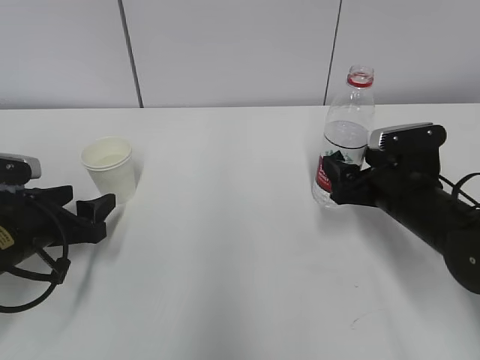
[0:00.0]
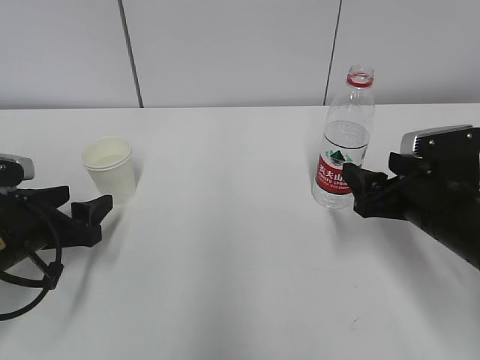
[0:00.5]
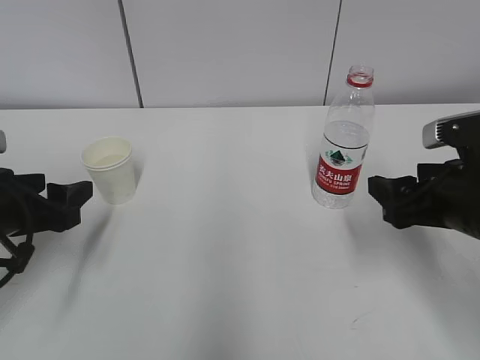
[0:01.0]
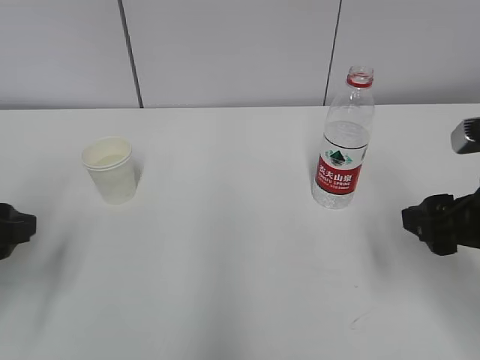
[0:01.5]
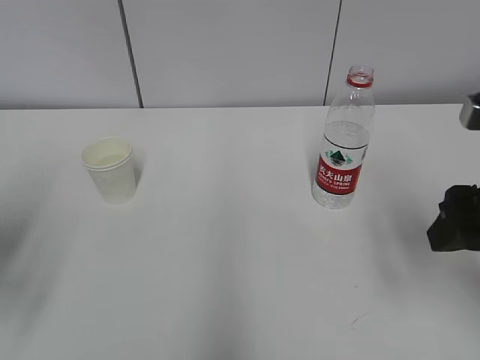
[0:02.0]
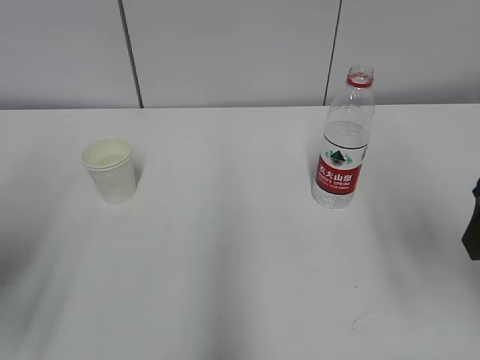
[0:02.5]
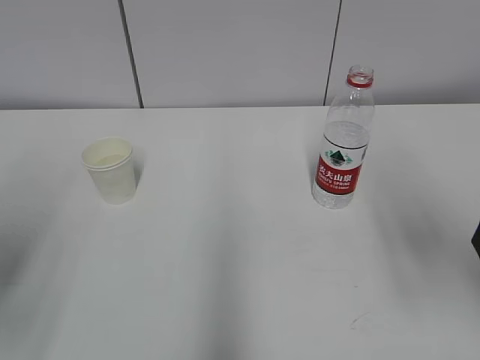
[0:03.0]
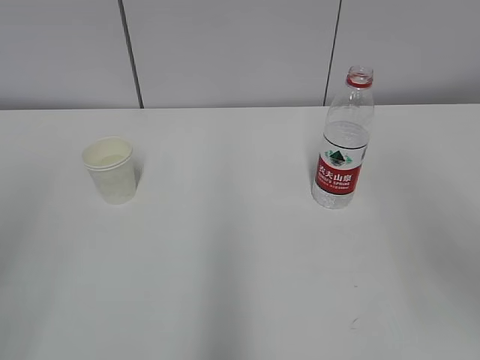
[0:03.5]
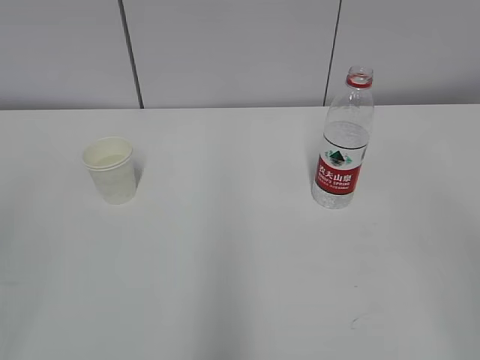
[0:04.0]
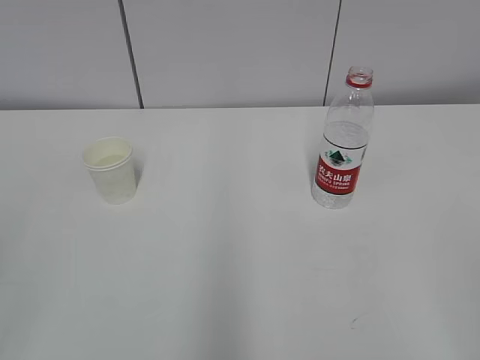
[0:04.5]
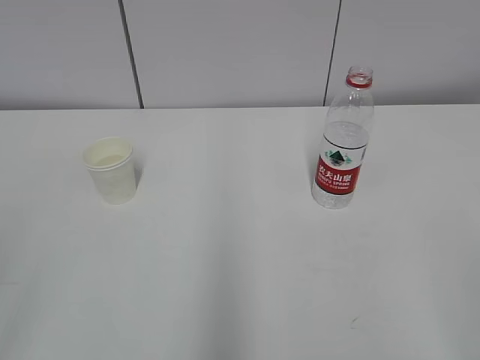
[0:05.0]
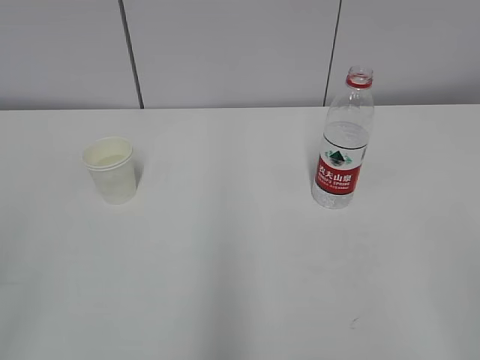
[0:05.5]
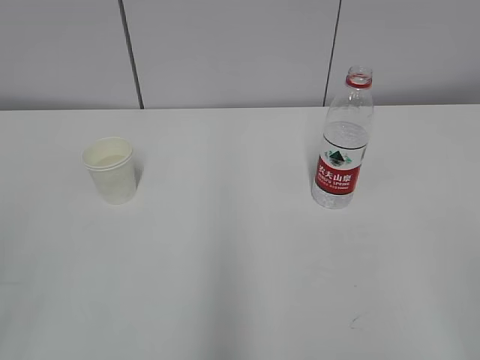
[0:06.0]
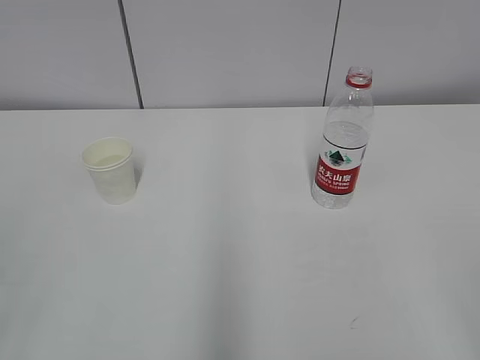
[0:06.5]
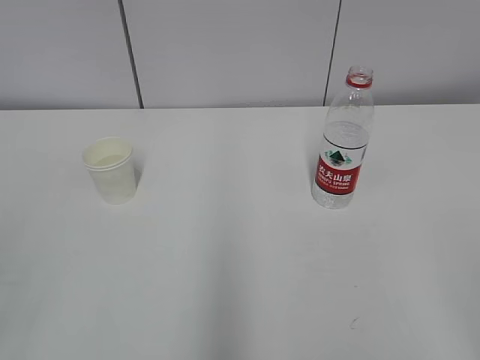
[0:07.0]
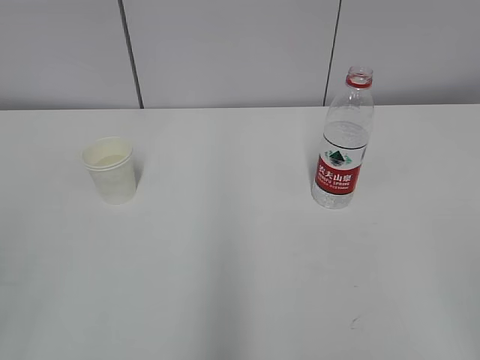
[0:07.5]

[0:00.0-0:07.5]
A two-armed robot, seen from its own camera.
0:00.0 to 0:02.0: Both grippers move upward and backward, about 20 cm.
0:02.0 to 0:04.0: The grippers both shift backward and upward by some 20 cm.

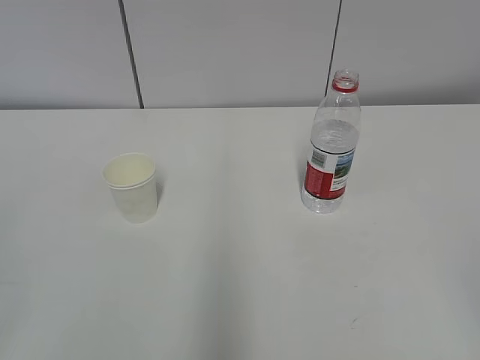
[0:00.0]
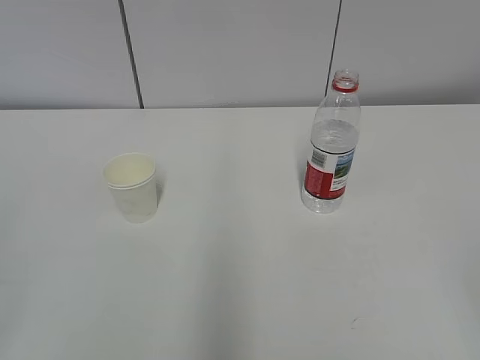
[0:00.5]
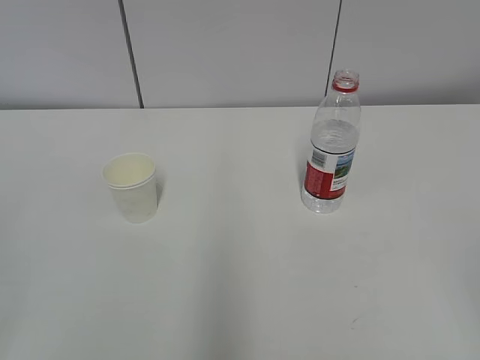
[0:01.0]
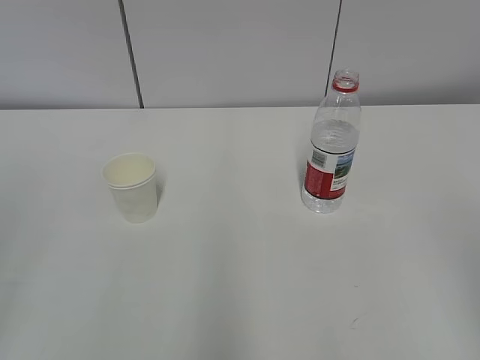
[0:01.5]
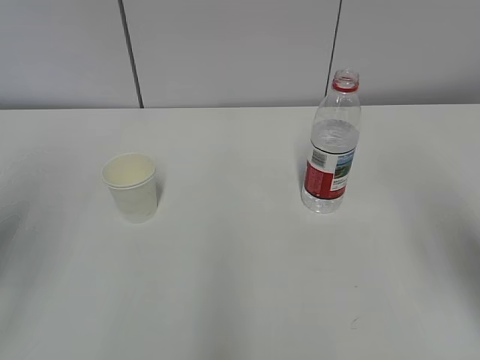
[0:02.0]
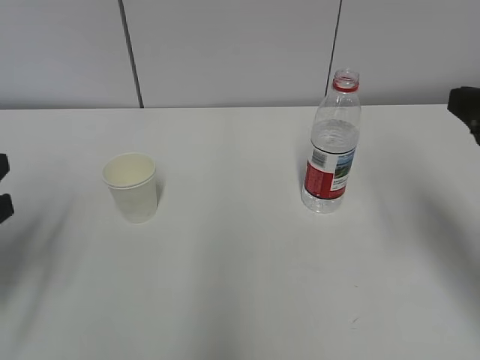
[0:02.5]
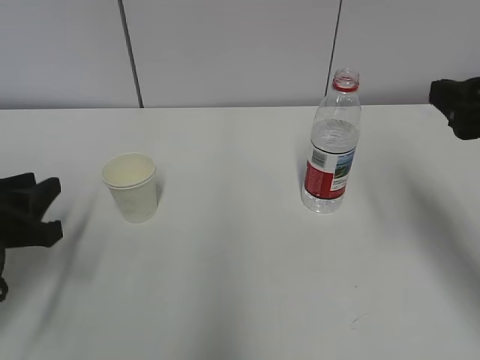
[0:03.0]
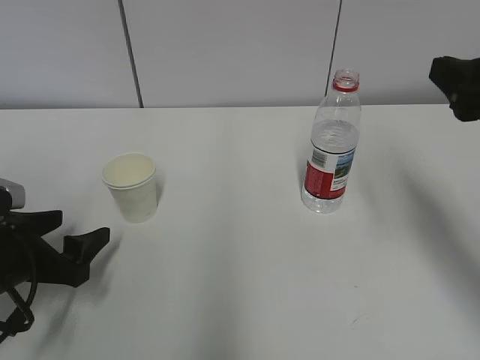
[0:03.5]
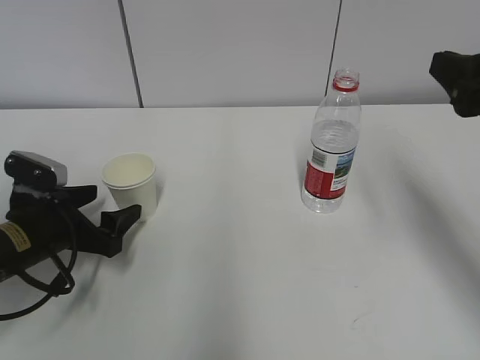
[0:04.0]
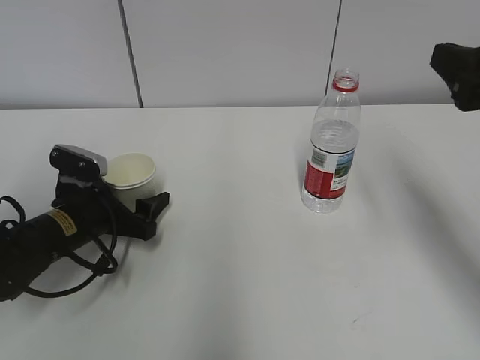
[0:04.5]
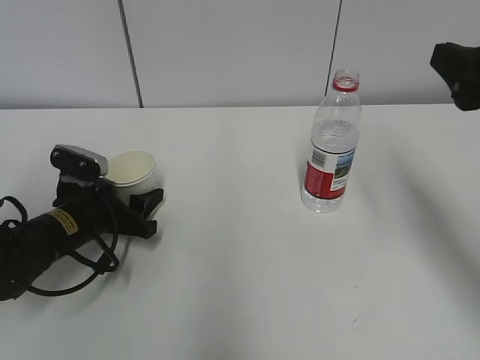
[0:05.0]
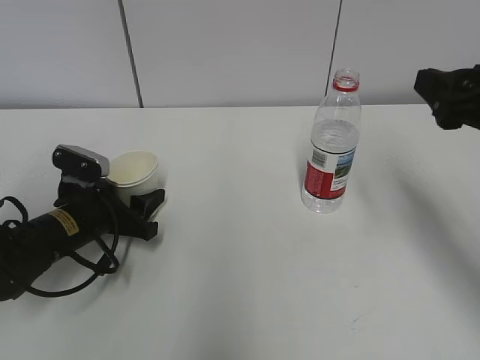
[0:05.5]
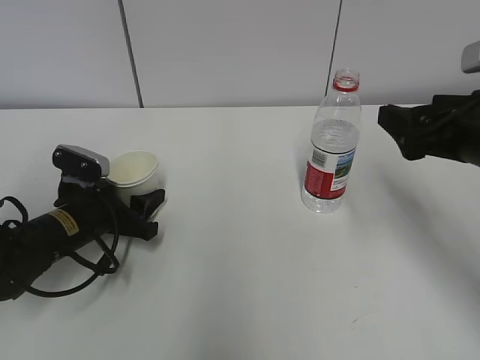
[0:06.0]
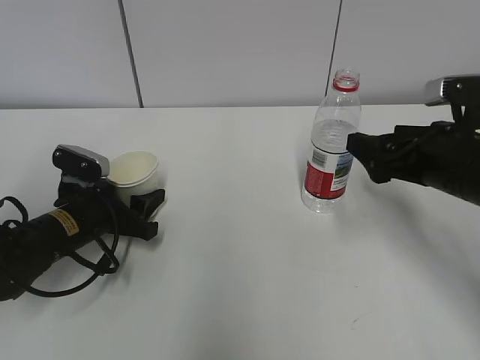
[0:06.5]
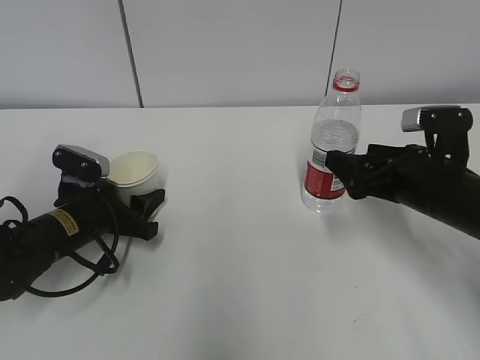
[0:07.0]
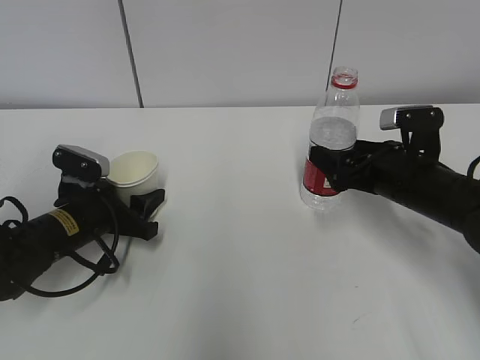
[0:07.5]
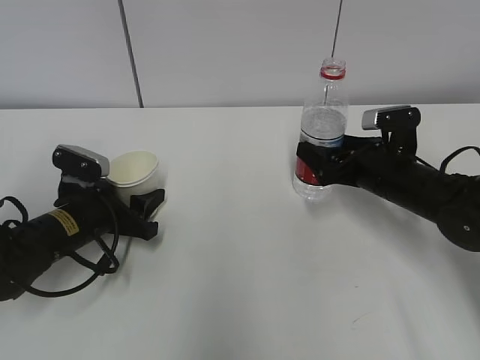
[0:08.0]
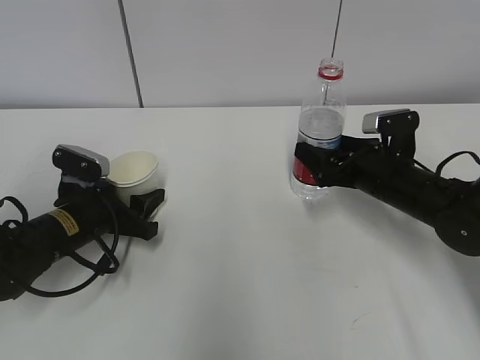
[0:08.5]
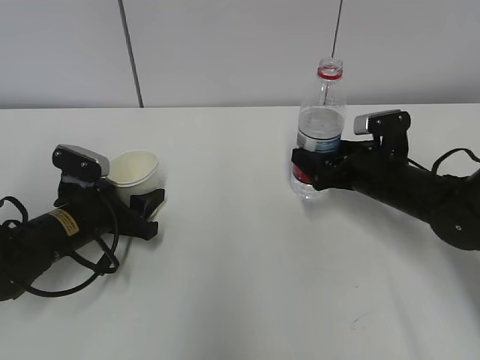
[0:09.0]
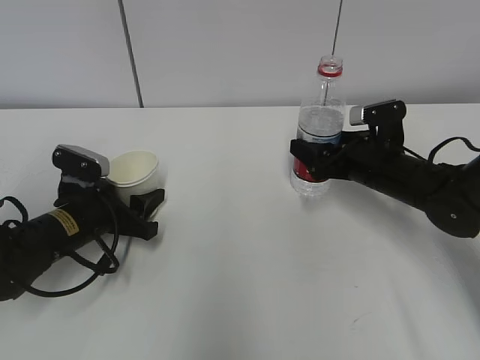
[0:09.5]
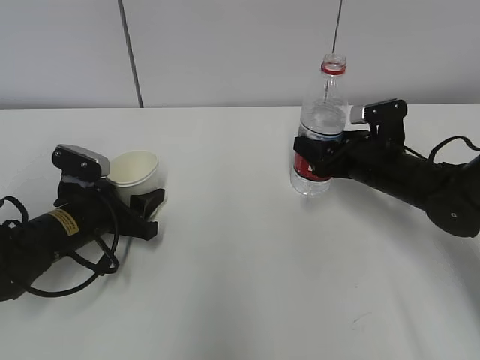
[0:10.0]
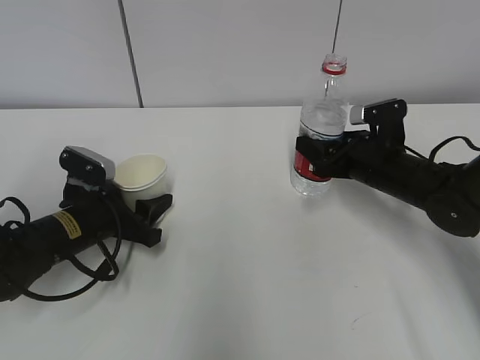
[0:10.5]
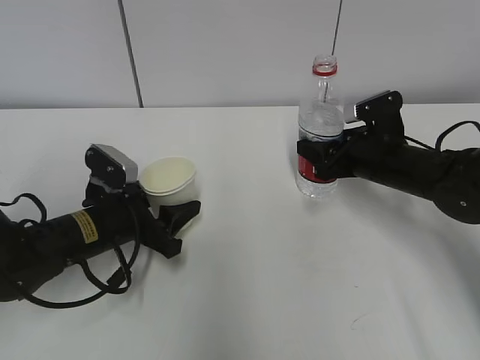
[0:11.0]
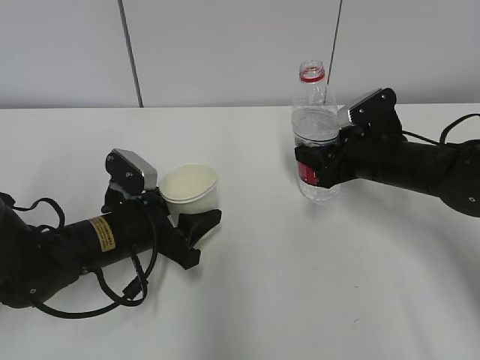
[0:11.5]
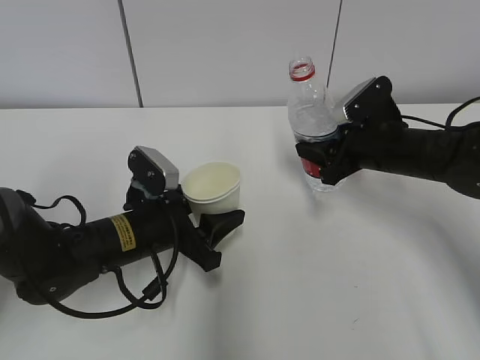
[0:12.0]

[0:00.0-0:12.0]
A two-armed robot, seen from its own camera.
Step, 0:00.0 to 0:08.5: Grab the paper cup with the left hand.
0:02.0 to 0:04.0: The left gripper travels downward and forward by approximately 25 cm, and opens. Meanwhile the right gripper travels forward by some 10 cm.
0:04.0 to 0:06.0: The right gripper shifts approximately 5 cm downward. The left gripper moves roughly 5 cm, and closes up.
0:06.0 to 0:08.0: The right gripper travels downward and forward by roughly 15 cm.
0:08.0 to 0:10.0: The right gripper closes its fingers.
0:10.0 to 0:12.0: The left gripper travels to the right by some 10 cm.

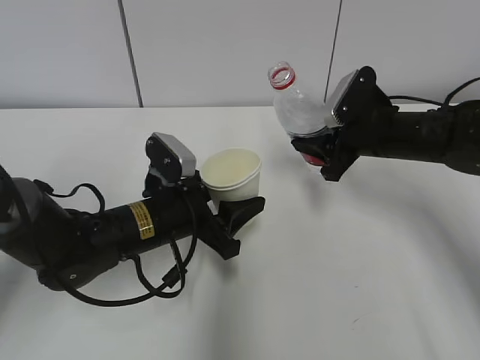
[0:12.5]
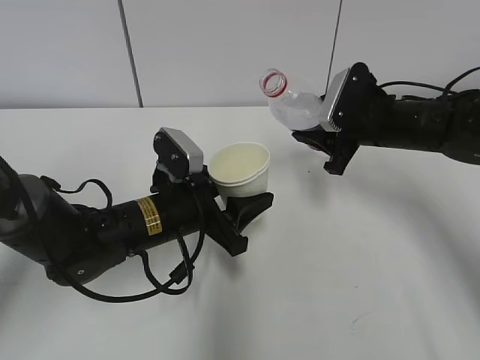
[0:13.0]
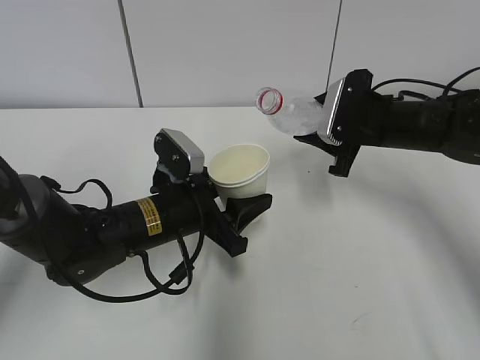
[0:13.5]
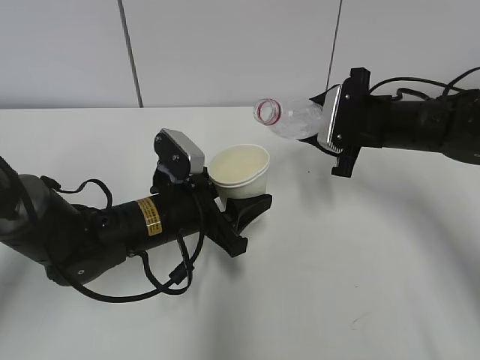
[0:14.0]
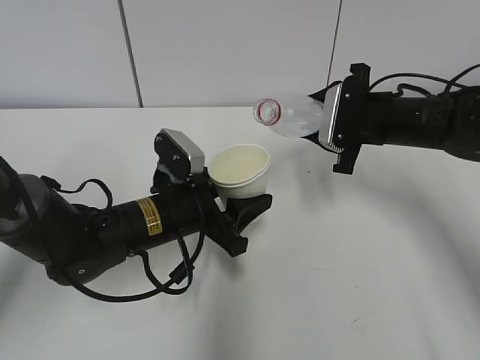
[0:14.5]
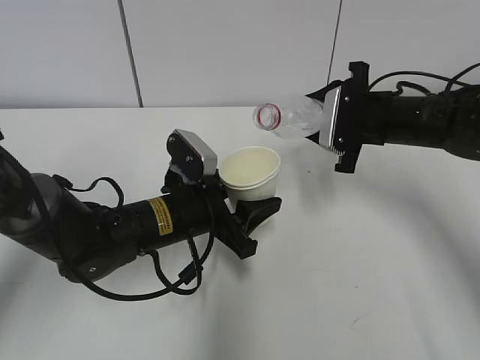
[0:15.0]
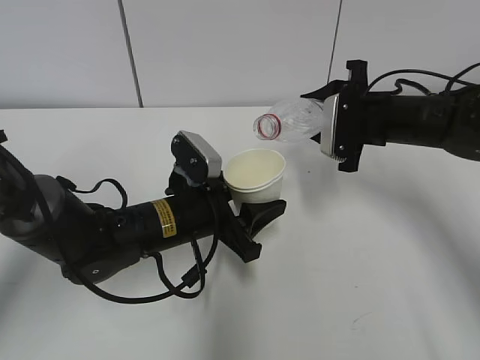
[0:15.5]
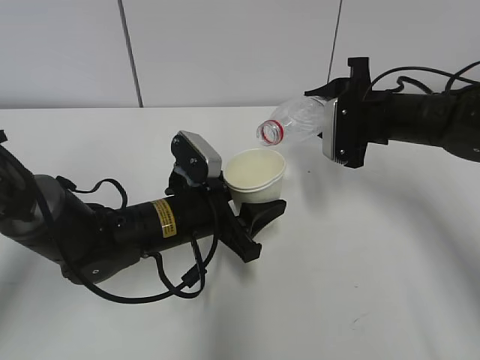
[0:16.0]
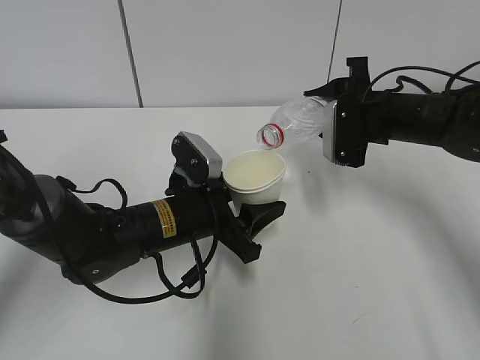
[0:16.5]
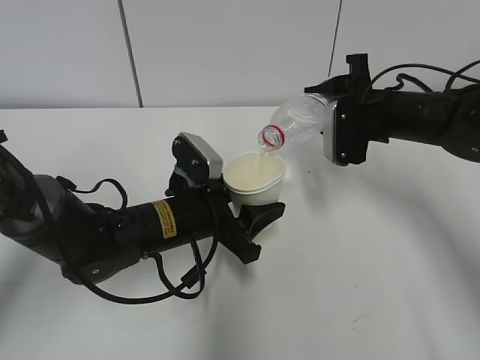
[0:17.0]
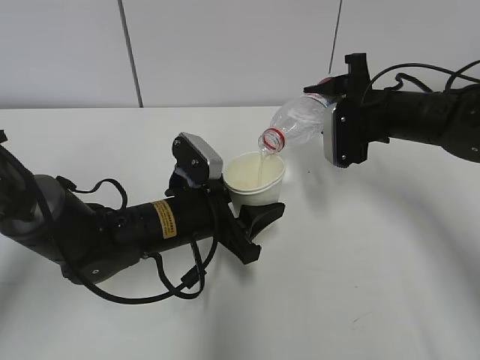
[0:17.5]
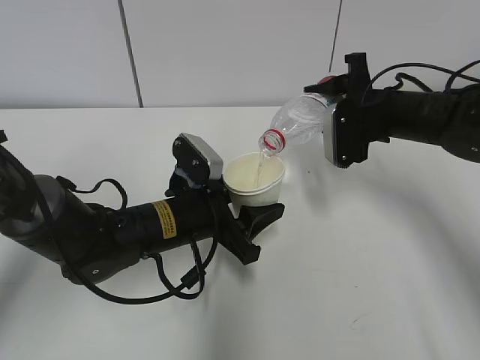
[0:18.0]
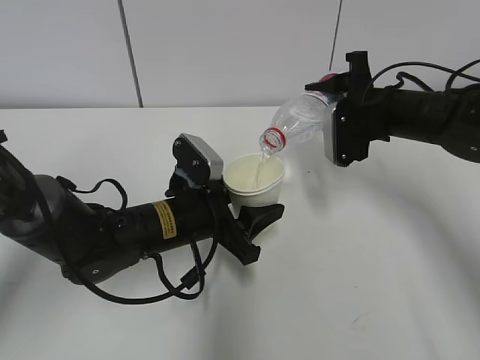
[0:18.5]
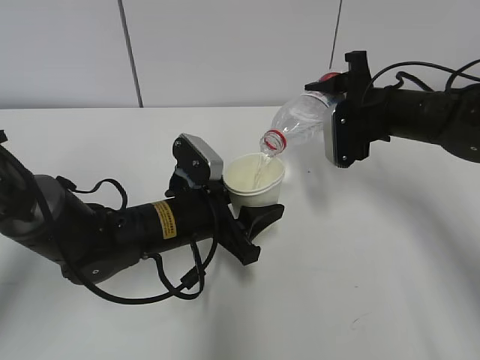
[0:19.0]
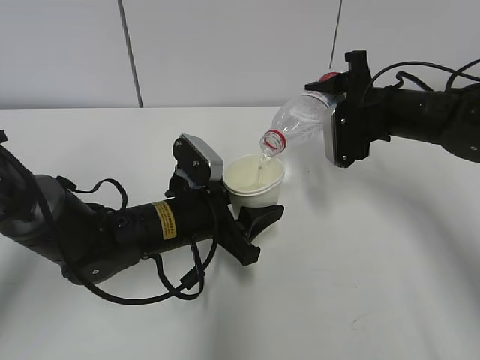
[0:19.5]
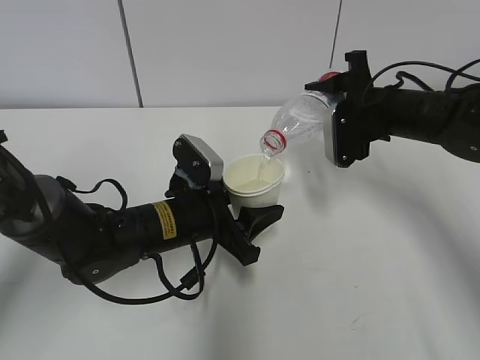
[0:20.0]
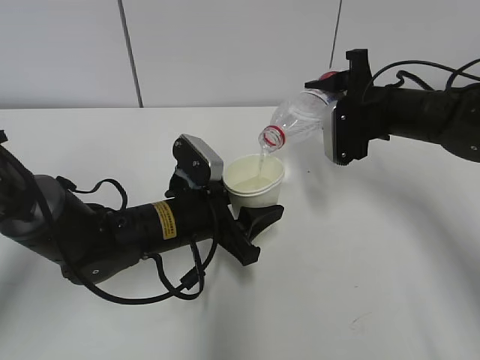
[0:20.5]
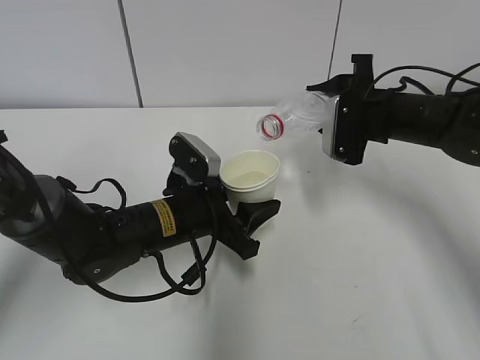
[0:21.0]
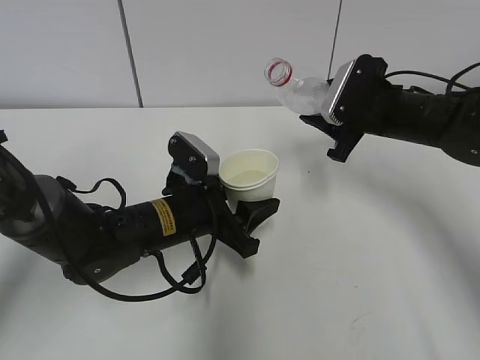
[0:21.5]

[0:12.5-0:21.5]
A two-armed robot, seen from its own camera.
Step, 0:14.5 to 0:17.0: Fill water with the left hand.
Step, 0:14.5 to 0:17.0: Pour water with the right hand.
Step, 0:17.5 to 0:18.5: Collect water with the right hand.
Step, 0:19.0 to 0:20.5: Place the paper cup with the left hand.
0:17.0 to 0:19.5: The grippers stay close to where they were, moving slightly.
